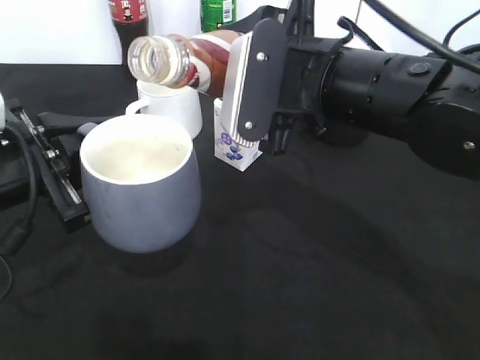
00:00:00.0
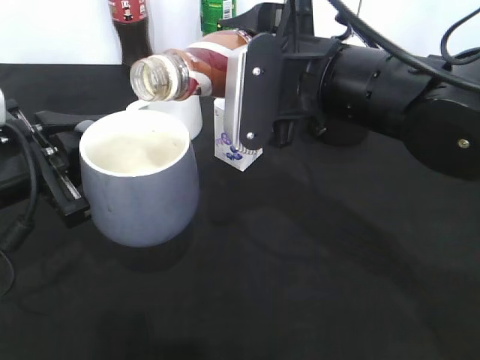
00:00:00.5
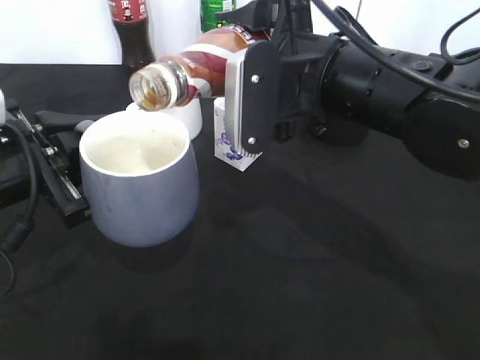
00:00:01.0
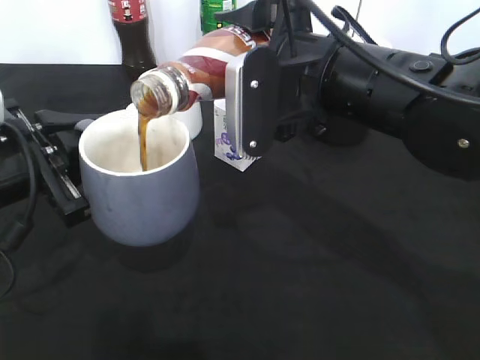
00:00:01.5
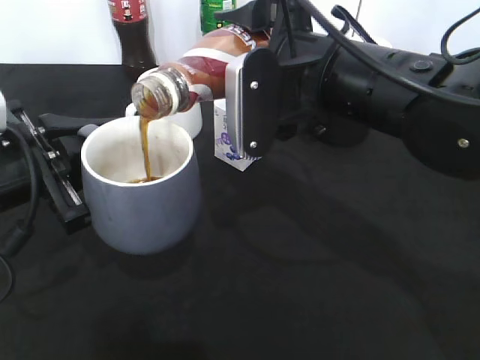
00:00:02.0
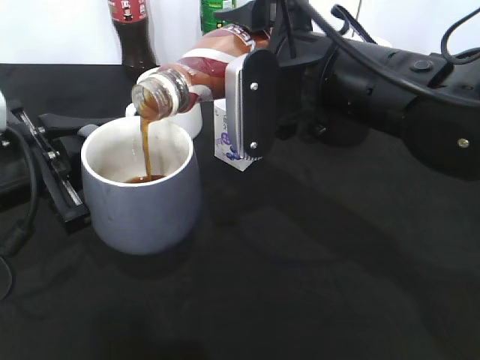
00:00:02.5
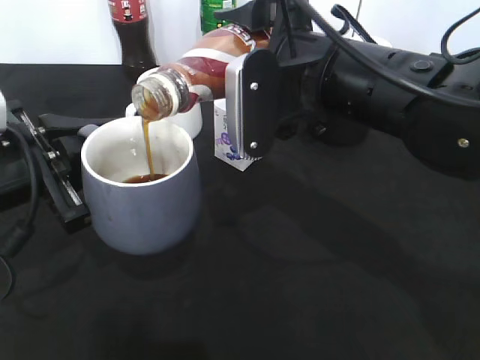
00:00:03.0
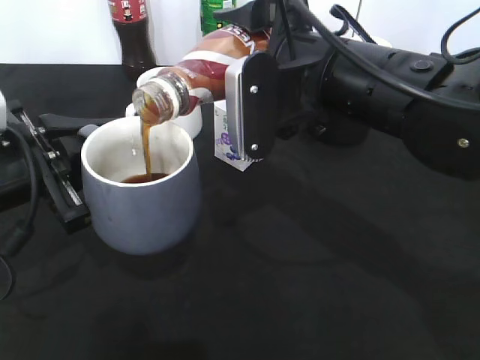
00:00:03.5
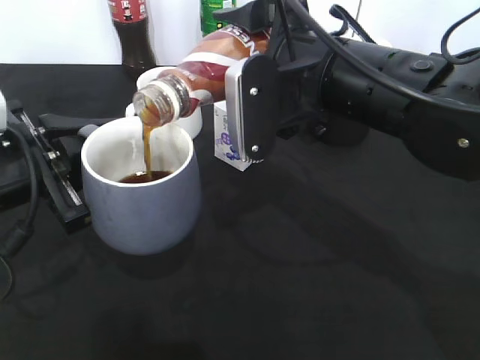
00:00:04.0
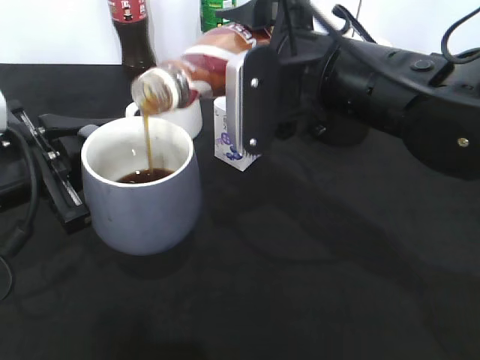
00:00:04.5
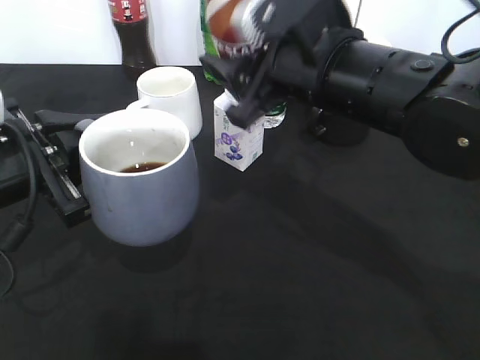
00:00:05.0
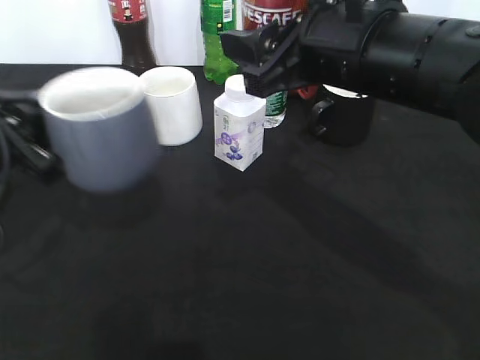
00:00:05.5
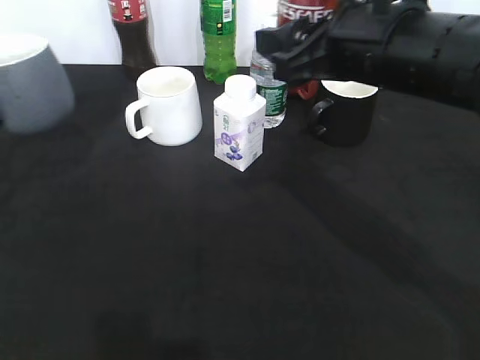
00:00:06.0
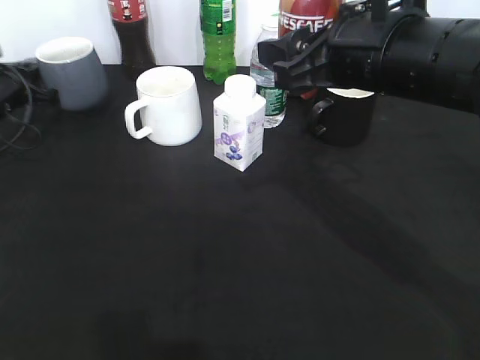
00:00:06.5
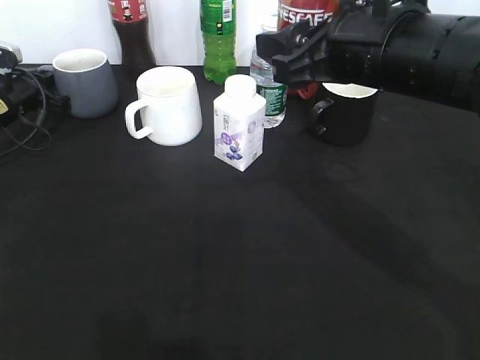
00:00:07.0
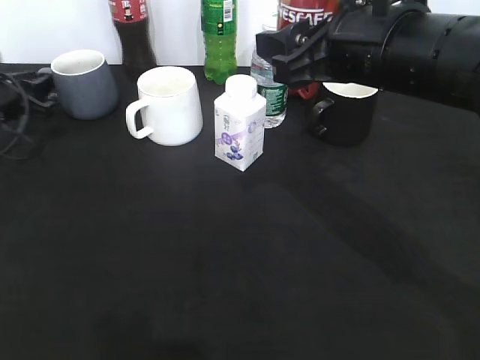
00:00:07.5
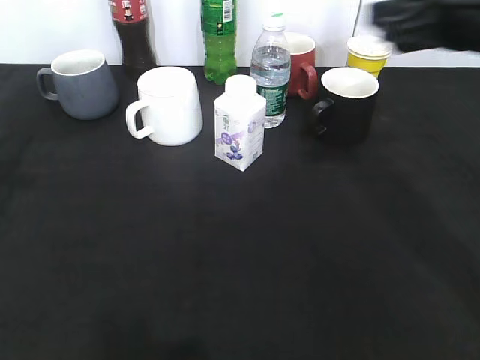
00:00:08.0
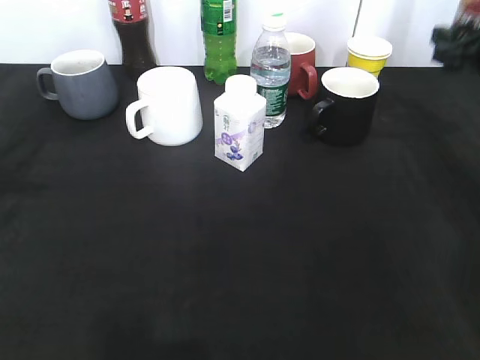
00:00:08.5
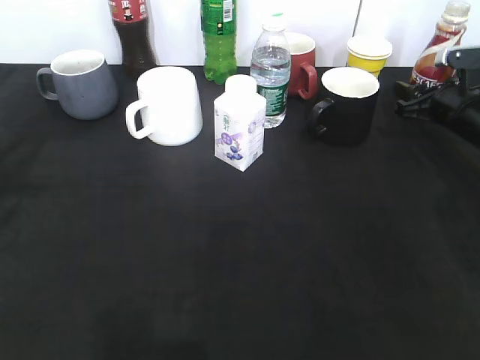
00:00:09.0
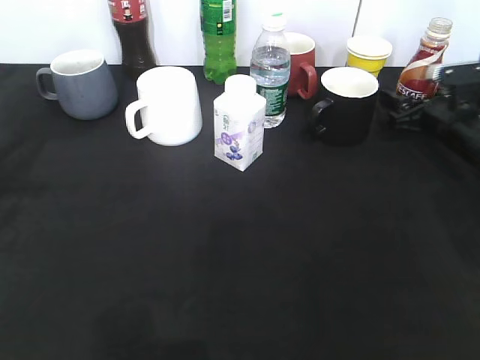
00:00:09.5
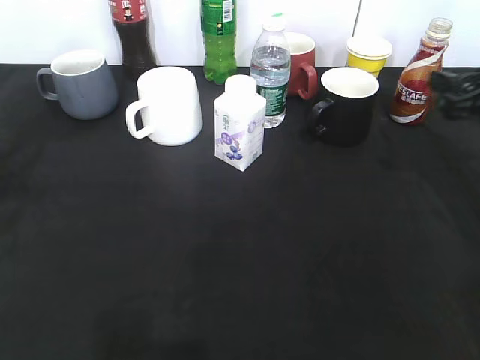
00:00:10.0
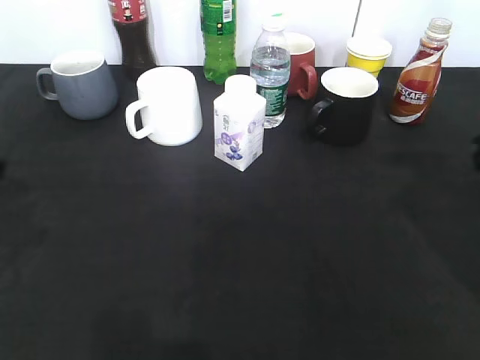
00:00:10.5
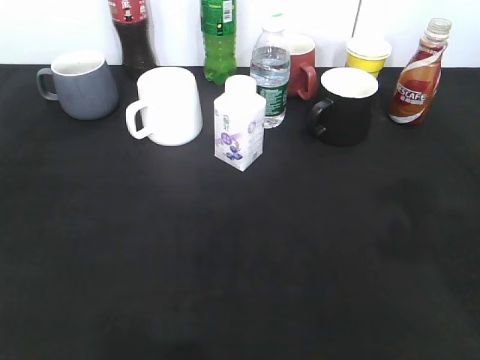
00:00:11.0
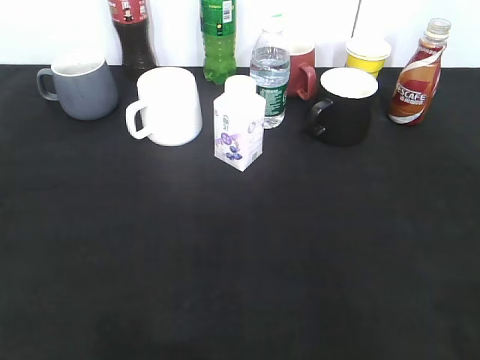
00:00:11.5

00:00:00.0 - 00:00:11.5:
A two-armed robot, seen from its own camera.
Step, 00:00:00.0 - 00:00:04.5: Pour the coffee from bottle to cup with right gripper.
Step, 00:00:05.0 - 00:00:07.5: Place the grey cup on the table with left gripper.
Step, 00:00:08.0 - 00:00:10.0: Place the coffee bottle on the table with right gripper.
00:00:00.0 - 00:00:02.0: The grippers stay close to where they were, moving slightly.
00:00:02.0 - 00:00:04.0: Both grippers stay put.
00:00:04.0 - 00:00:06.0: The left gripper shifts approximately 15 cm to the left and forward.
00:00:06.0 - 00:00:07.5: The left gripper heads forward and downward, covering roughly 15 cm, and opens up.
00:00:07.5 - 00:00:09.5: The left gripper is displaced backward and upward by roughly 25 cm, while the right gripper travels to the right, downward and forward by roughly 30 cm, and opens.
00:00:09.5 - 00:00:11.5: The left gripper goes about 20 cm backward. Meanwhile the right gripper is displaced backward and upward by some 40 cm.

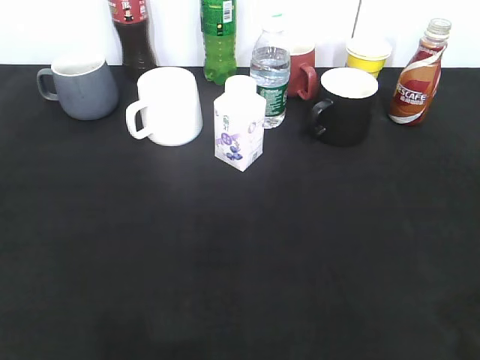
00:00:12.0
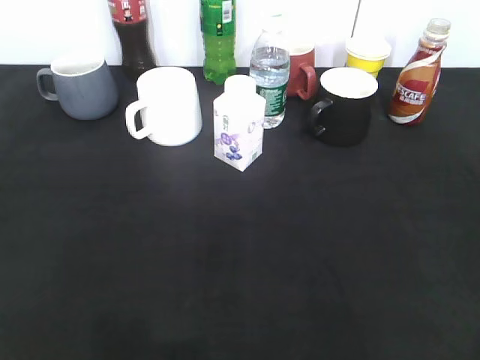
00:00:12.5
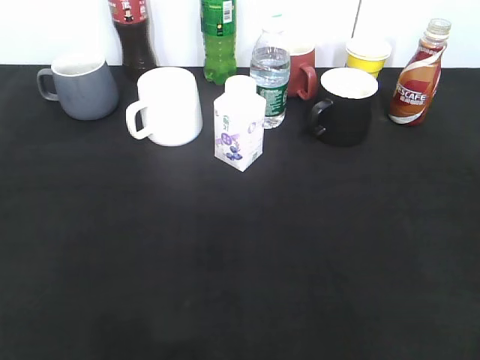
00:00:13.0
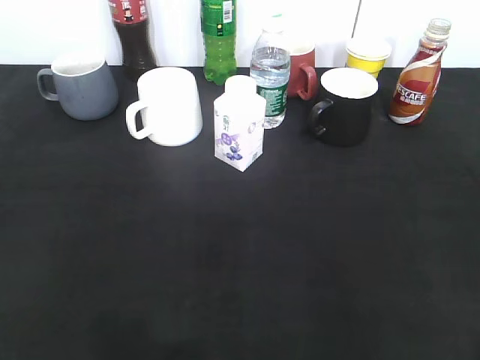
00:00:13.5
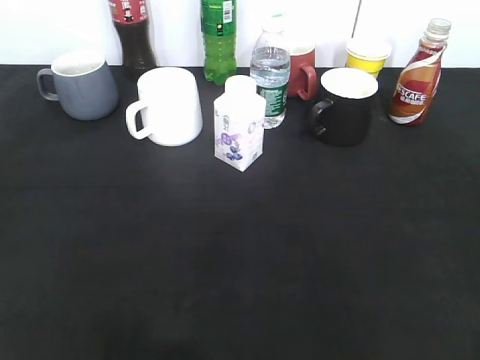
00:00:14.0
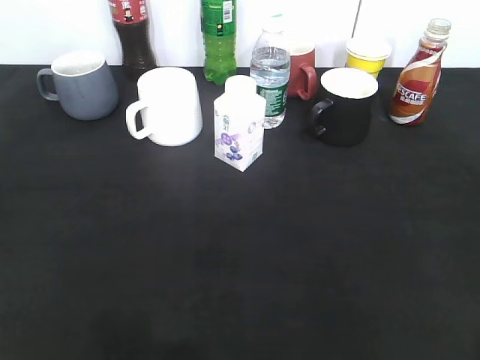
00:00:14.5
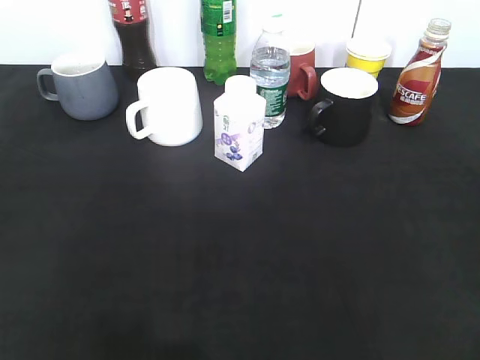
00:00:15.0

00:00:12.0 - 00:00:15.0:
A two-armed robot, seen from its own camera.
00:00:13.5 - 00:00:15.0: Both grippers stay about where they are.
